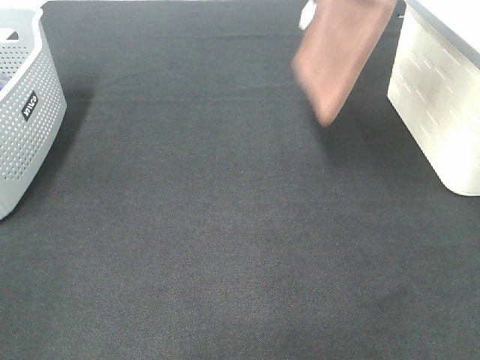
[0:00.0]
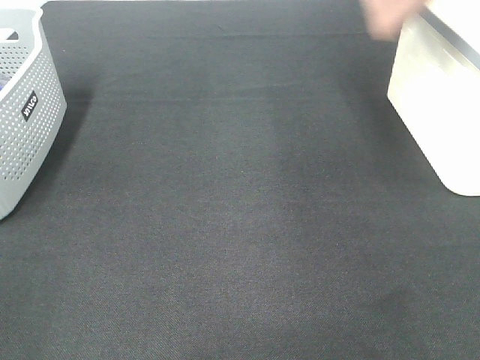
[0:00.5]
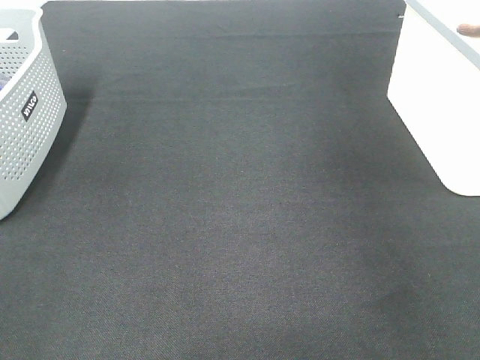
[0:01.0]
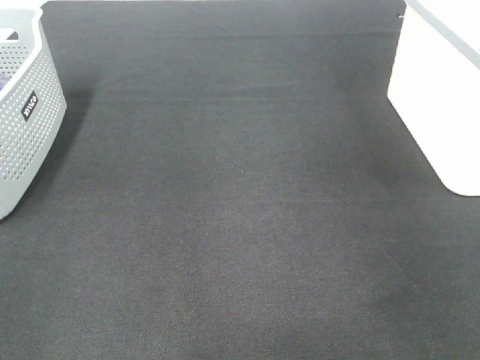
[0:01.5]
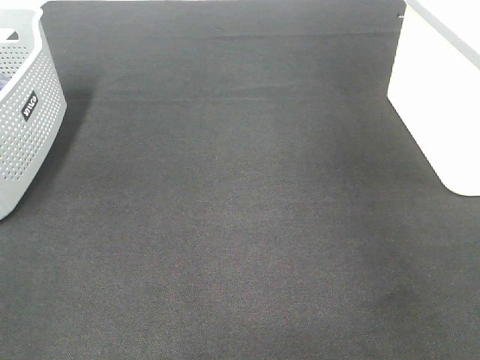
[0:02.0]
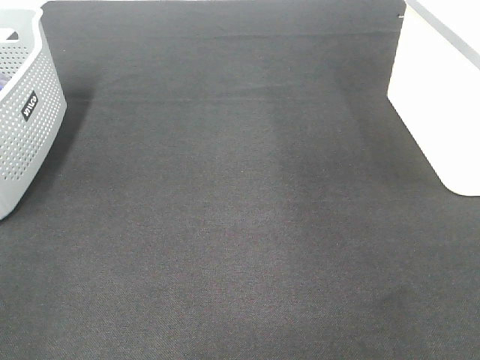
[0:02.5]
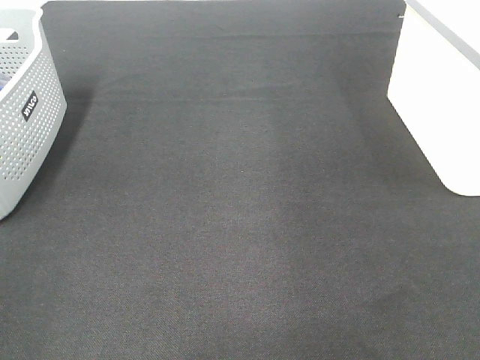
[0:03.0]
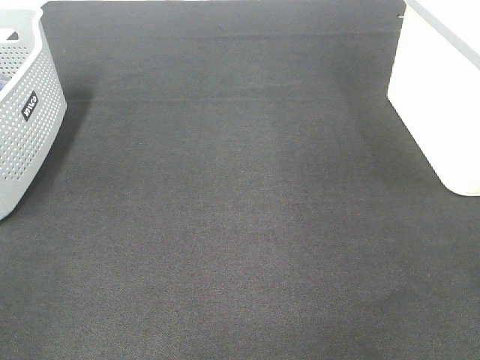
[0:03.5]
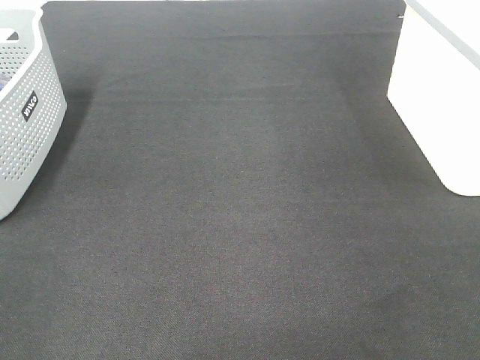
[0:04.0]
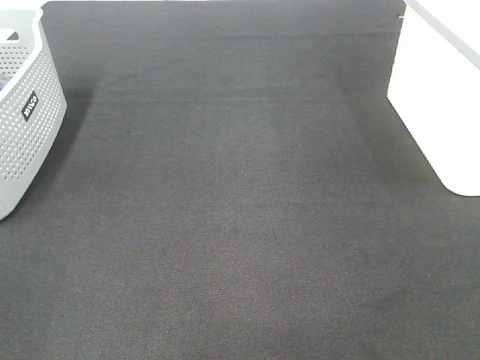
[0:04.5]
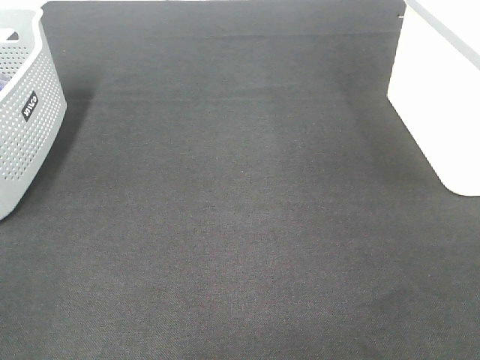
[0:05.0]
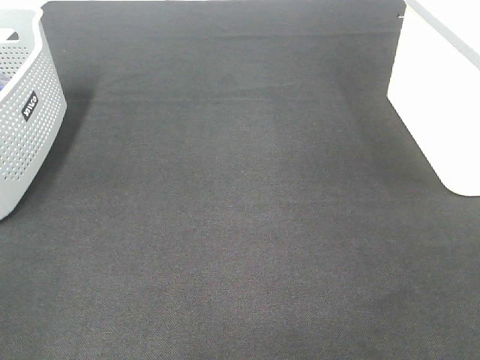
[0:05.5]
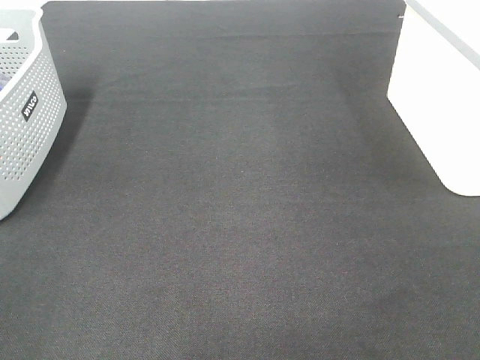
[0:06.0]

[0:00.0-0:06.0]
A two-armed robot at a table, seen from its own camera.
0:00.0 to 0:02.0: The right gripper heads to the right, covering some 20 cm, and opens its fingers.
